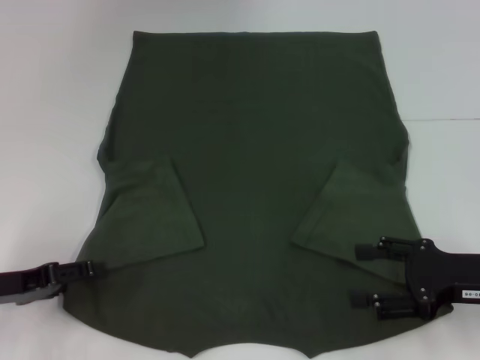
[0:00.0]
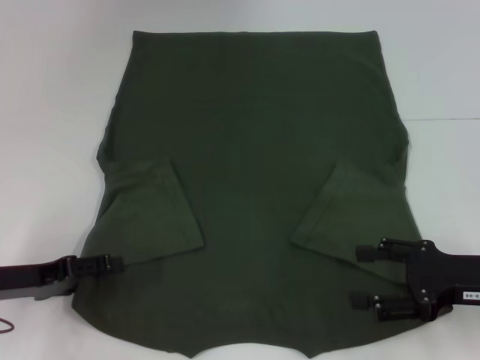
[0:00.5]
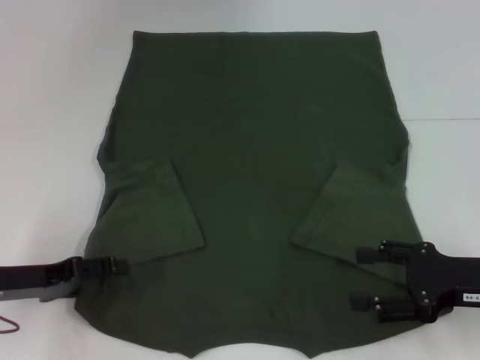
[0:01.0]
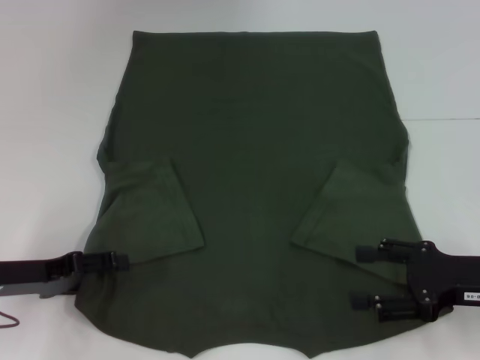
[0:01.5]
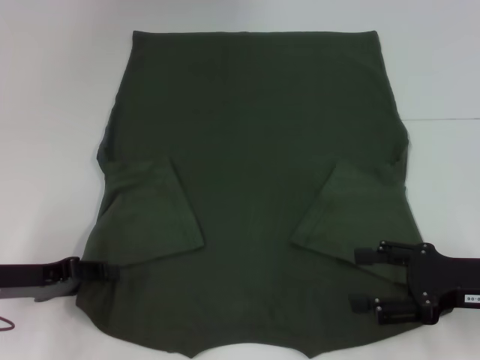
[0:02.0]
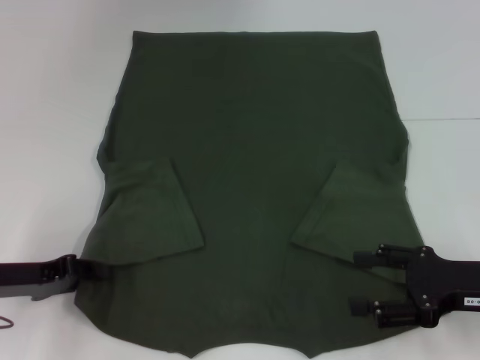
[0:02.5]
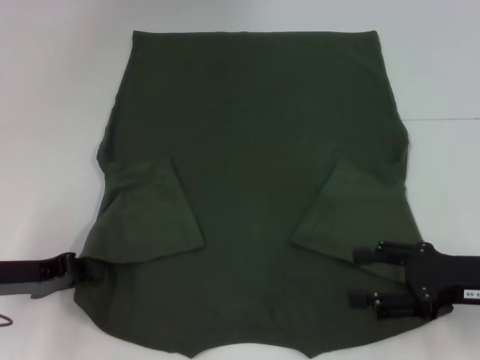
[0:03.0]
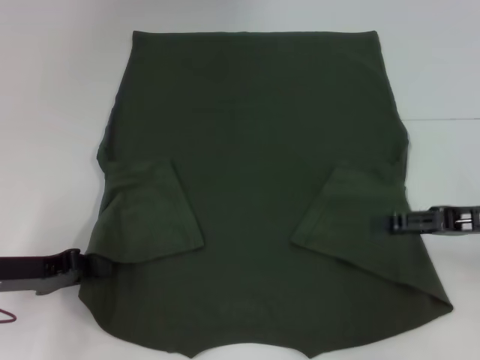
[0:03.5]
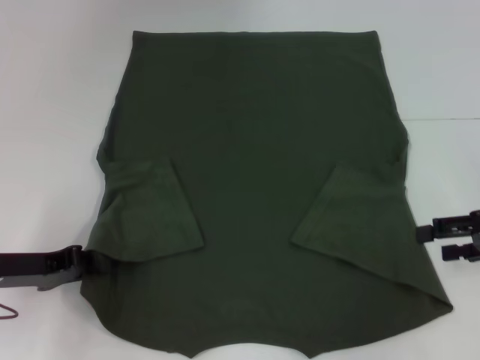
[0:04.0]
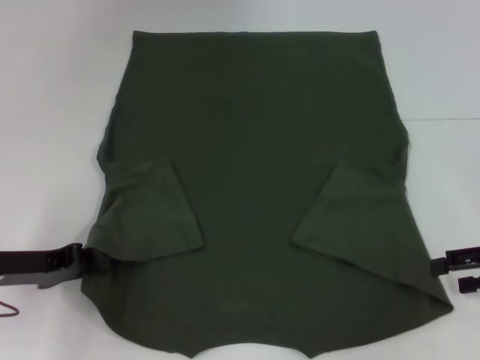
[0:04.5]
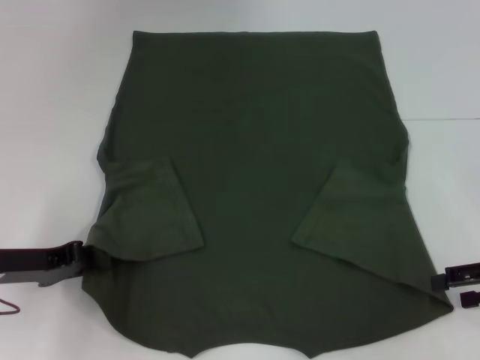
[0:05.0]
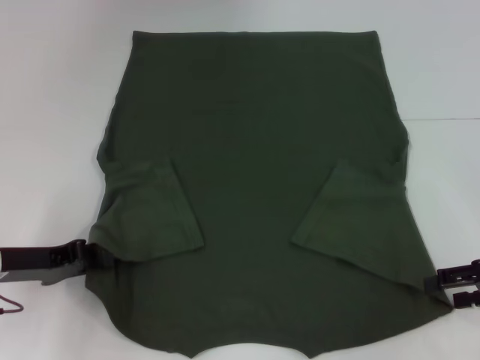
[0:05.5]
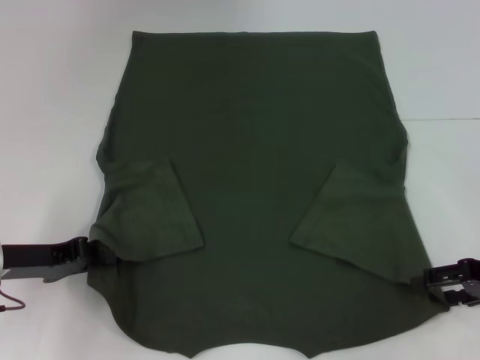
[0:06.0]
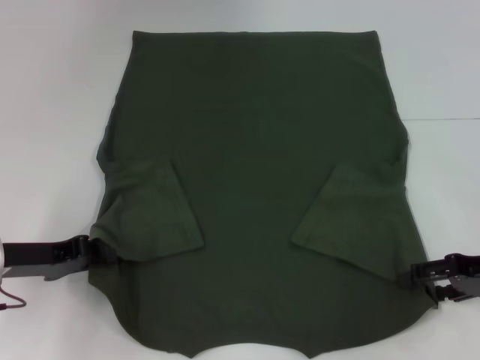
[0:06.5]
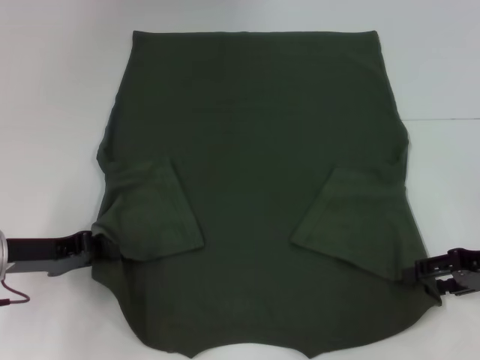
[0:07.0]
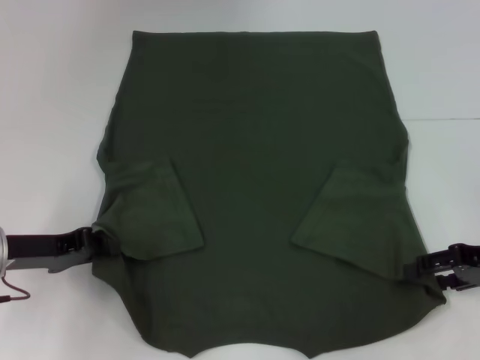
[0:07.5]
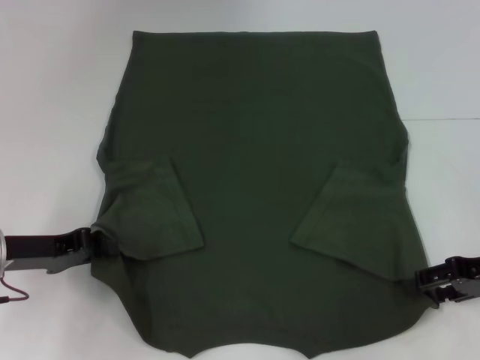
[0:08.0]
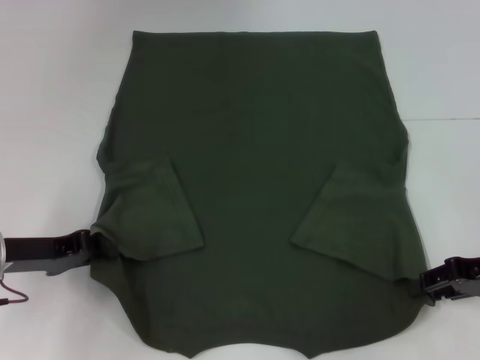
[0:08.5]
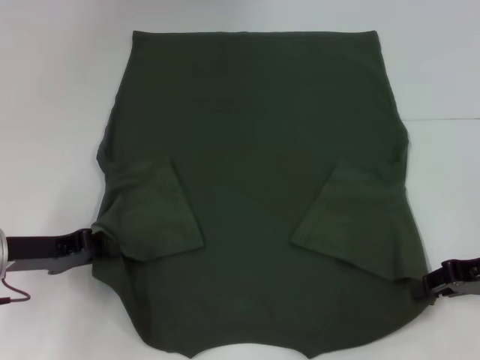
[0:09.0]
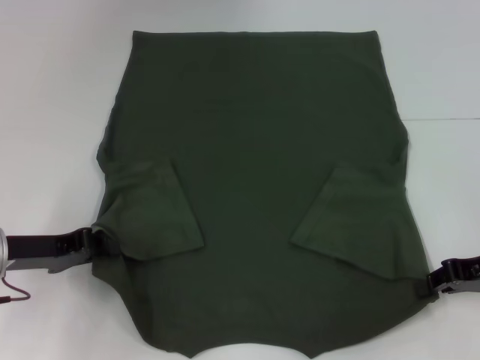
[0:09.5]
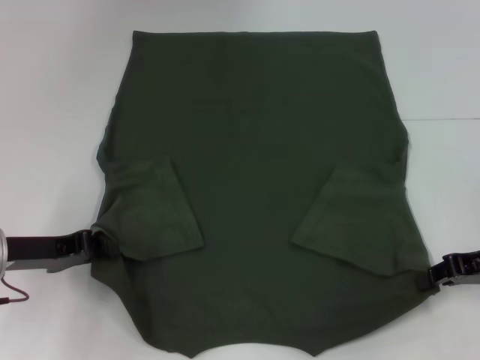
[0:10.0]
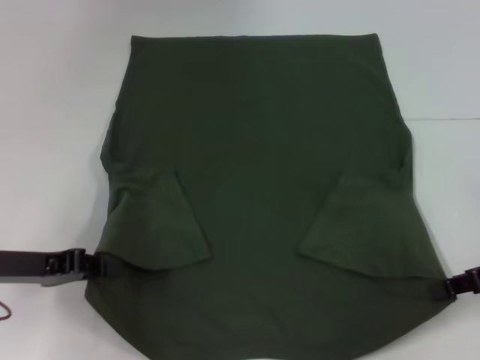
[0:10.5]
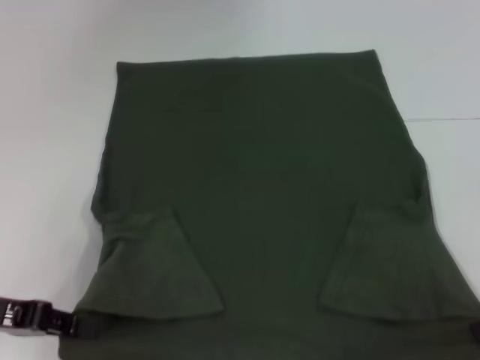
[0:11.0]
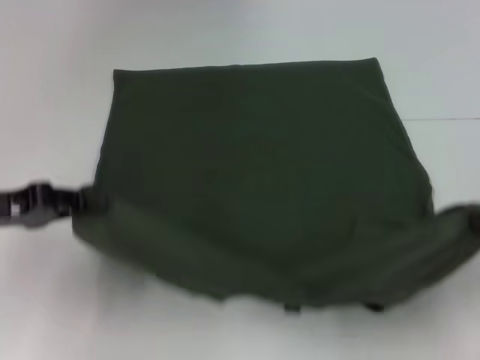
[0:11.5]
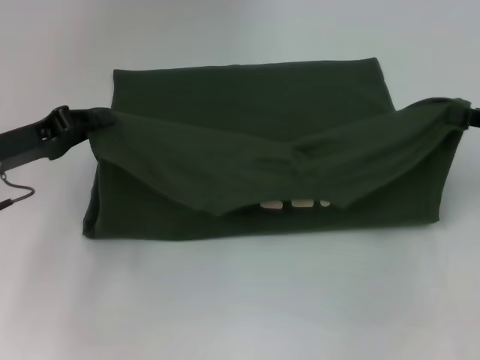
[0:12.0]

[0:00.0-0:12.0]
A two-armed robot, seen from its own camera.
Step, 0:00.0 to 0:02.0: Grab the bottom left corner with your left hand.
Step, 0:02.5 to 0:09.0: Grab the bottom right corner with your right hand.
0:00.0 to 0:02.0: The grippers move only a little.
0:02.0 to 0:04.0: The right gripper moves to the right and forward, some 10 cm. Meanwhile the left gripper closes.
0:04.0 to 0:08.0: The grippers make only small movements.
0:08.0 to 0:10.0: The right gripper closes its fingers.
0:10.0 to 0:12.0: The two grippers go roughly 5 cm upward. The right gripper reaches some 5 cm backward, then returns.

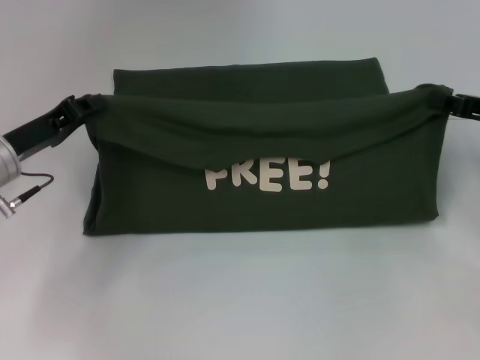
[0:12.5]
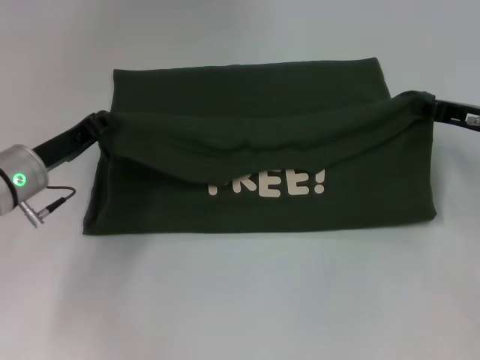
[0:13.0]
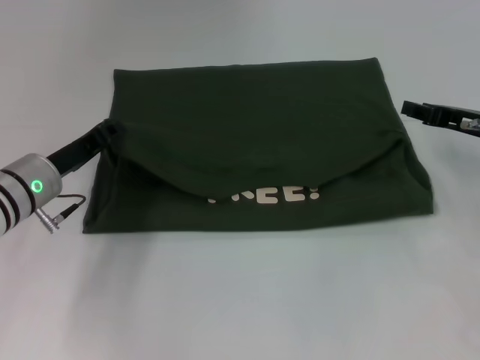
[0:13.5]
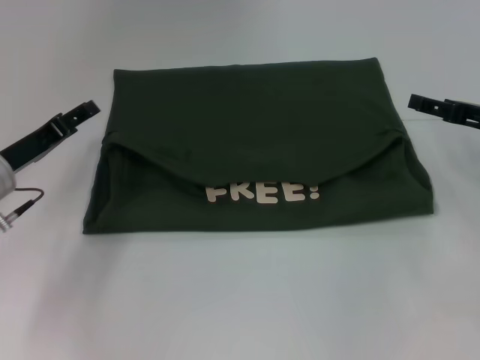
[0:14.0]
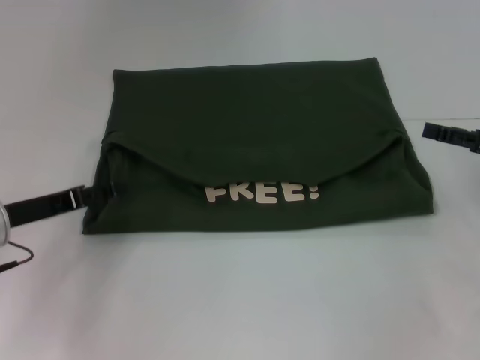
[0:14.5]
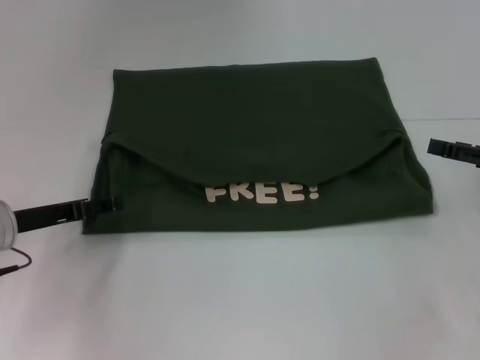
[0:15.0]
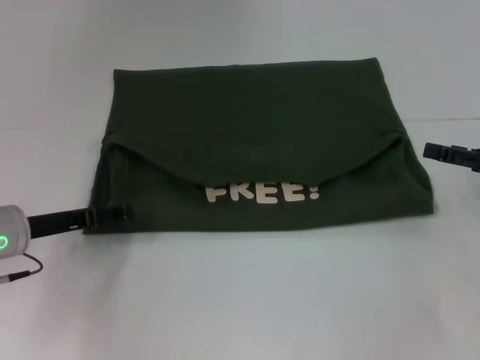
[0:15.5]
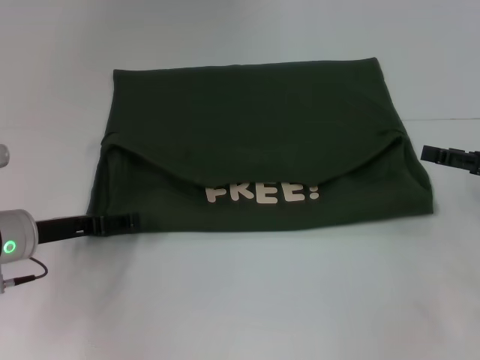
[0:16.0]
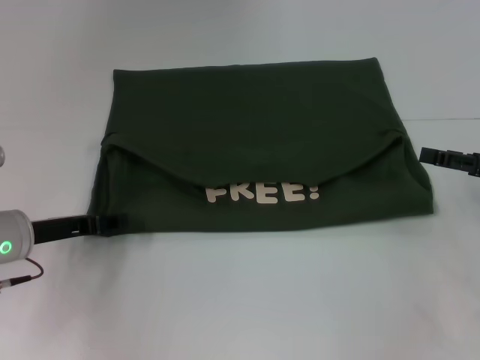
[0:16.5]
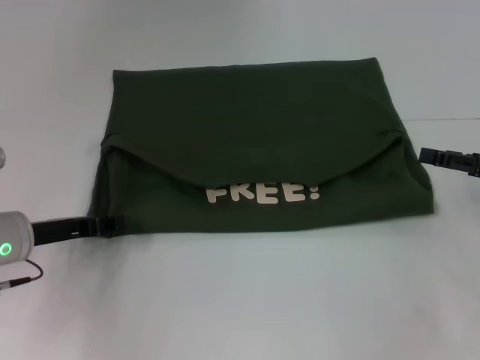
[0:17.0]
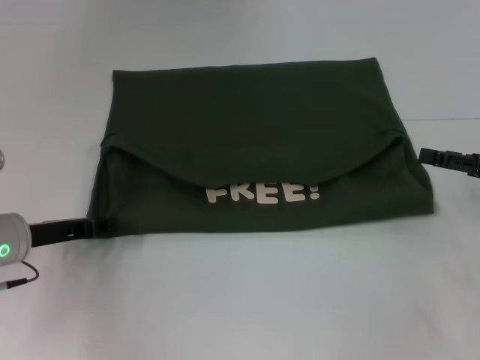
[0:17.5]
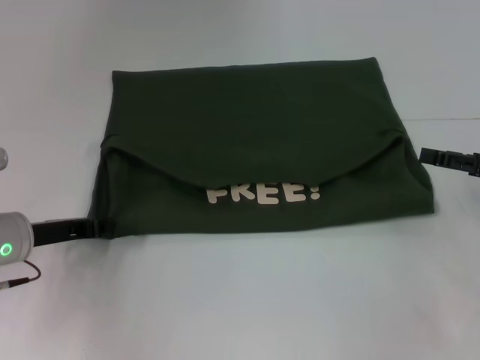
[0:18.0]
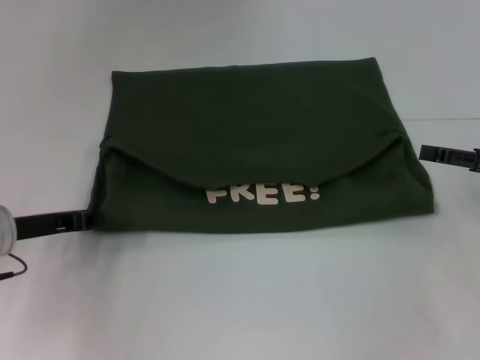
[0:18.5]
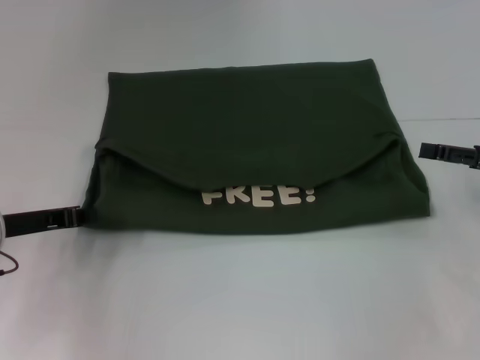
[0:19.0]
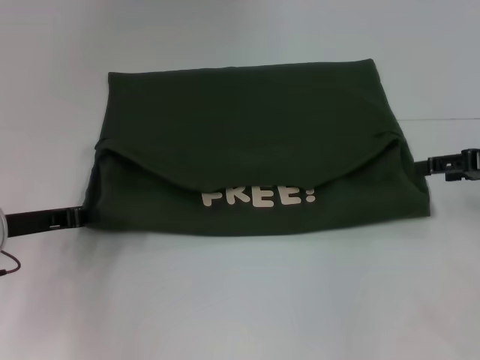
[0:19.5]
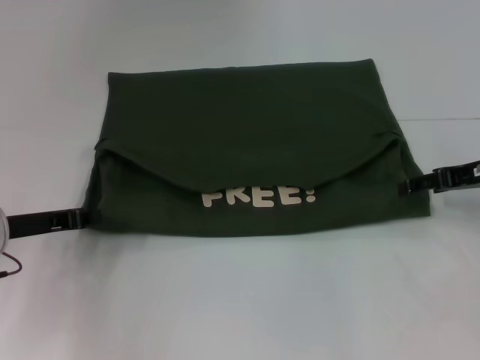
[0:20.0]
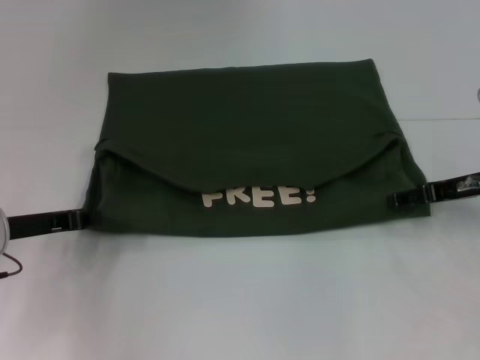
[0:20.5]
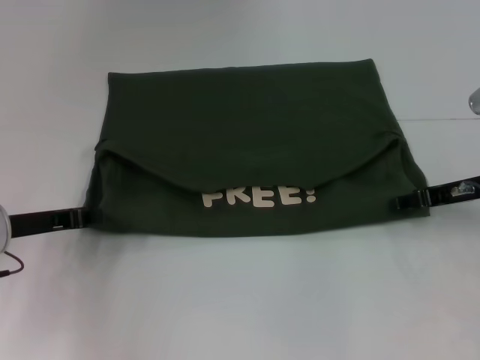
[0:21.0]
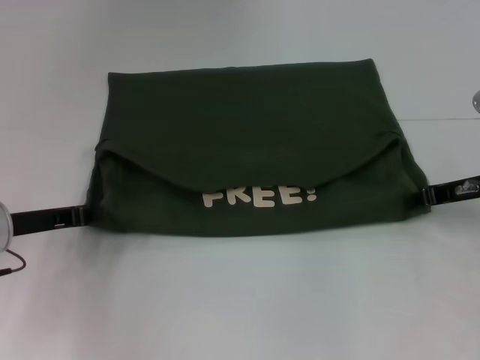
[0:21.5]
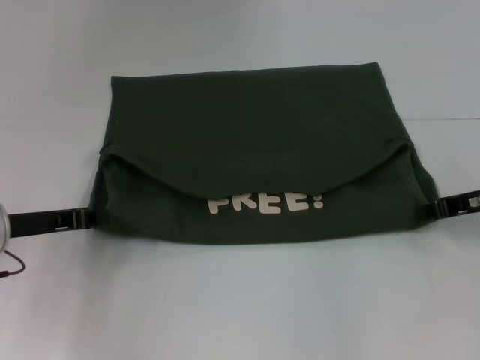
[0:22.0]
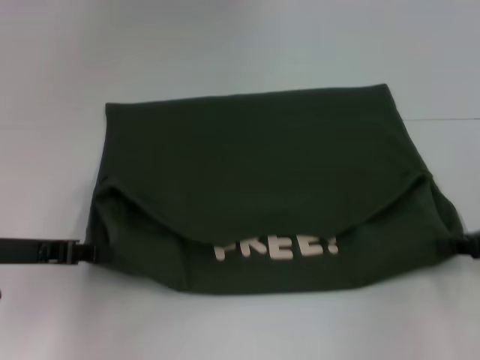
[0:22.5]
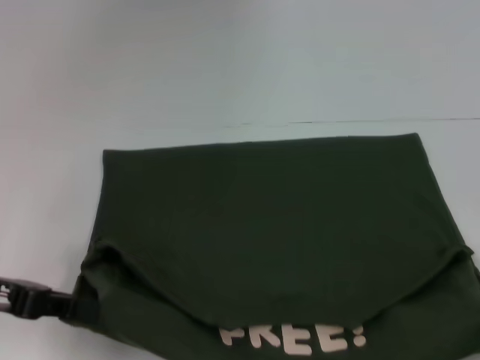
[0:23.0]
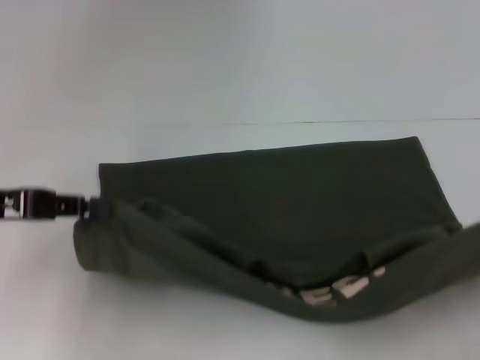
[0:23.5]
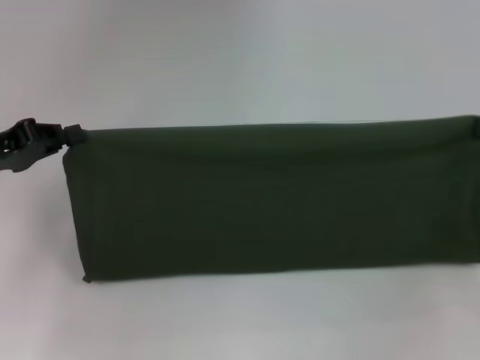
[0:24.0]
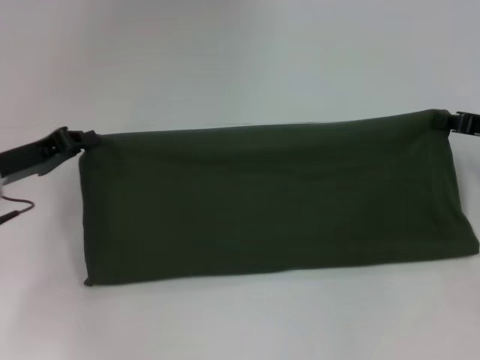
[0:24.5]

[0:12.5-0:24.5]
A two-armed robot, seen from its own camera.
Step, 0:14.0 to 0:22.5: Pull the clothes with your left hand.
Step, 0:14.0 to 0:22.5: Pull the clothes with your right hand.
0:12.5 to 0:14.5: The right gripper opens its fingers. The left gripper opens its fingers.
0:14.5 to 0:16.5: The grippers move only a little.
0:16.5 to 0:18.5: The left gripper closes up.
0:18.5 to 0:20.5: The right gripper goes about 5 cm to the left.
0:20.5 to 0:22.5: The right gripper travels backward by approximately 10 cm, and closes its fingers.
0:22.5 to 0:24.5: Both grippers move forward, roughly 5 cm.

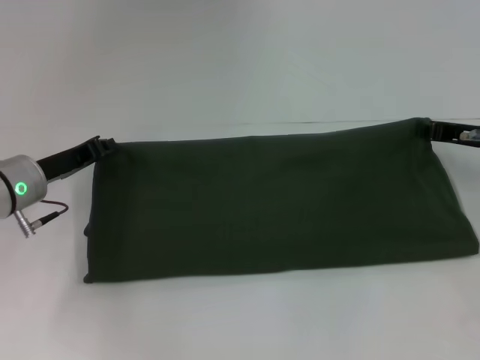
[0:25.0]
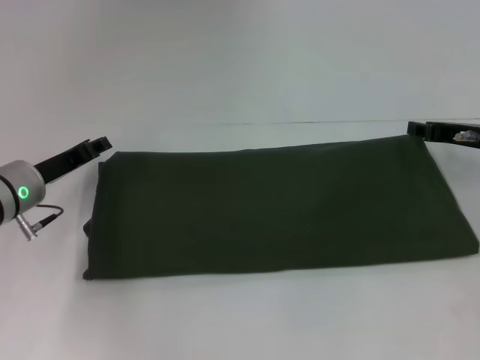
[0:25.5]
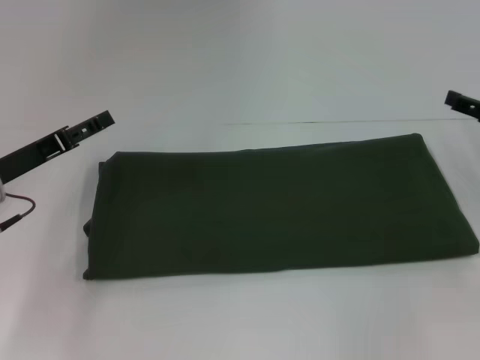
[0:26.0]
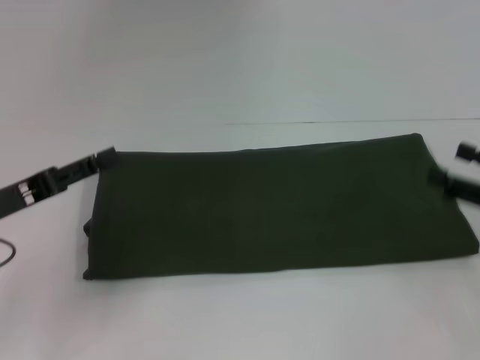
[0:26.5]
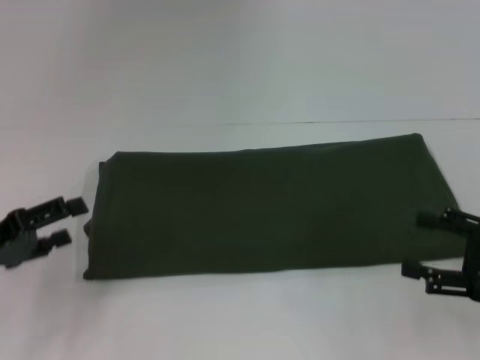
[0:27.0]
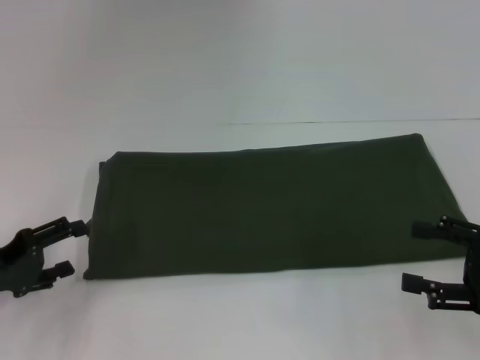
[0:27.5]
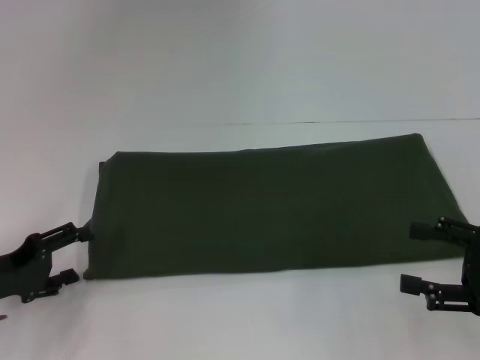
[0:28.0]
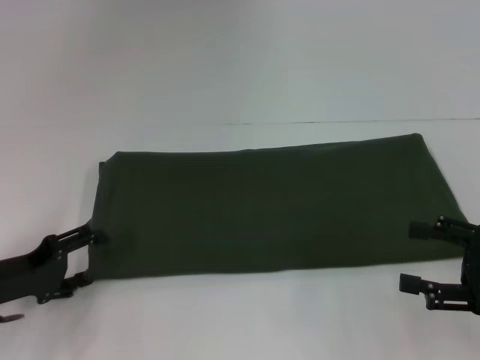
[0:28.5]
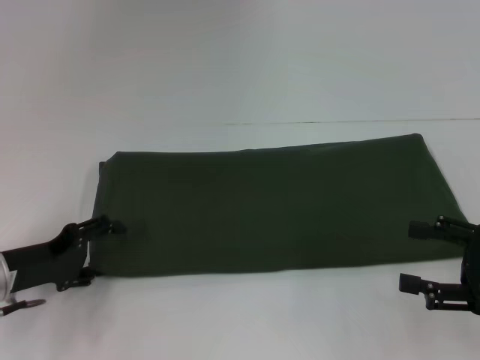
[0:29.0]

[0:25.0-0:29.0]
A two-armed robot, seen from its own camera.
0:25.0 to 0:27.0: The right gripper moves backward, roughly 15 cm, and opens. Meanwhile the left gripper heads backward and to the left, covering roughly 15 cm, and opens up.
0:27.0 to 0:29.0: The left gripper changes place by about 5 cm.
